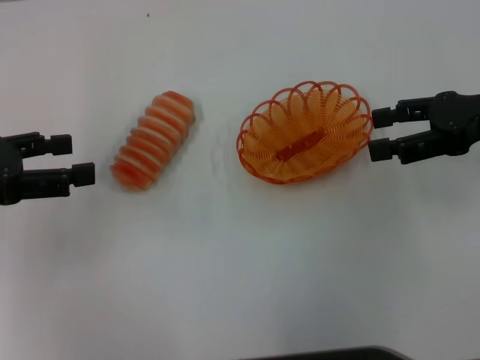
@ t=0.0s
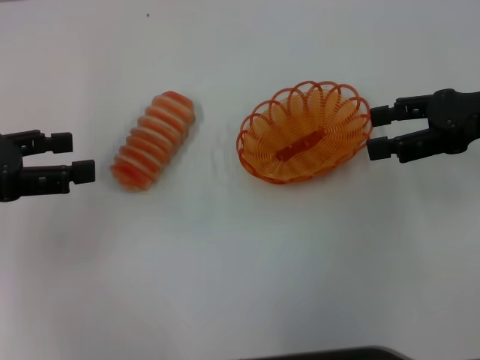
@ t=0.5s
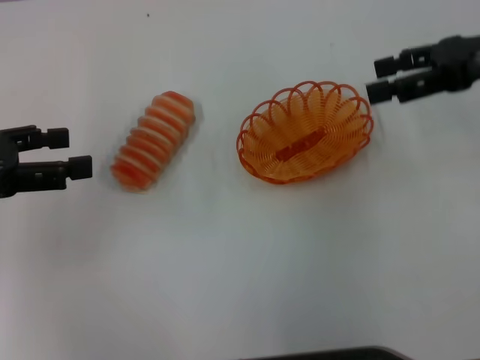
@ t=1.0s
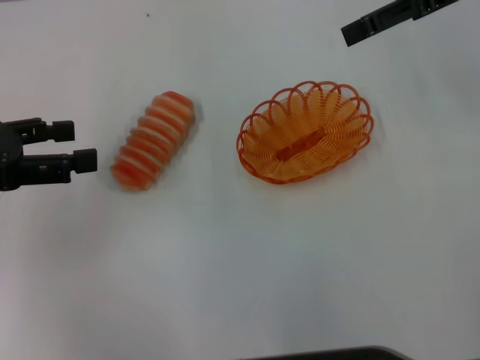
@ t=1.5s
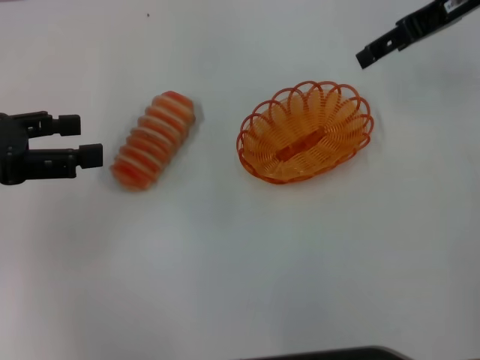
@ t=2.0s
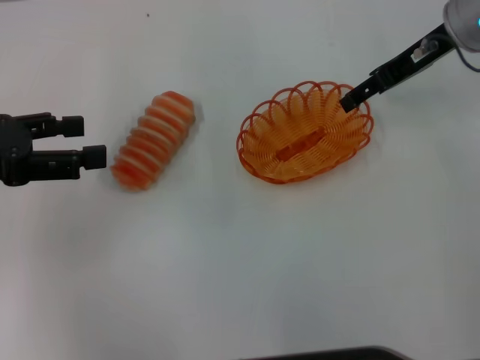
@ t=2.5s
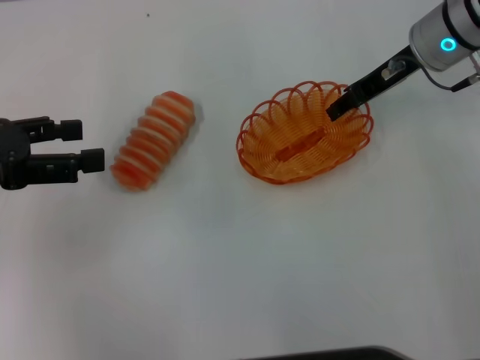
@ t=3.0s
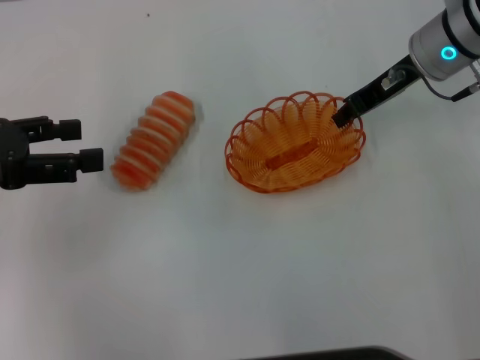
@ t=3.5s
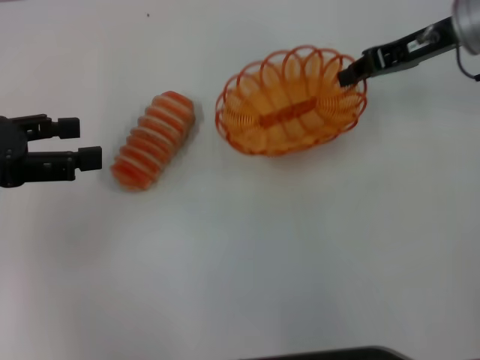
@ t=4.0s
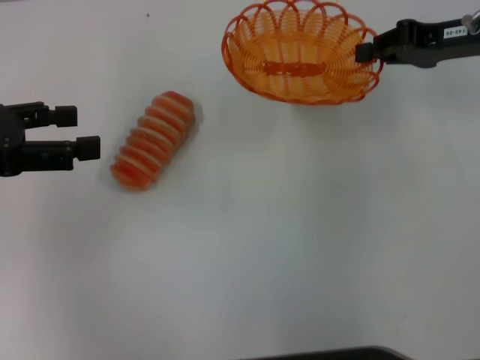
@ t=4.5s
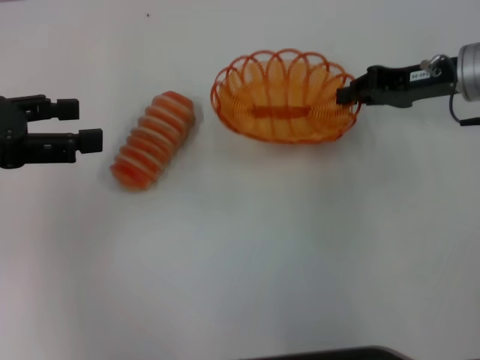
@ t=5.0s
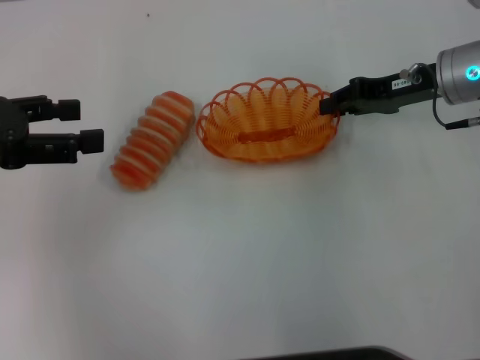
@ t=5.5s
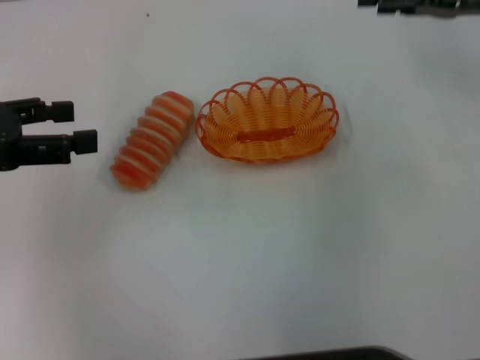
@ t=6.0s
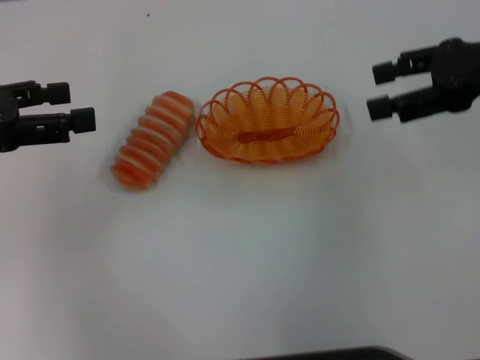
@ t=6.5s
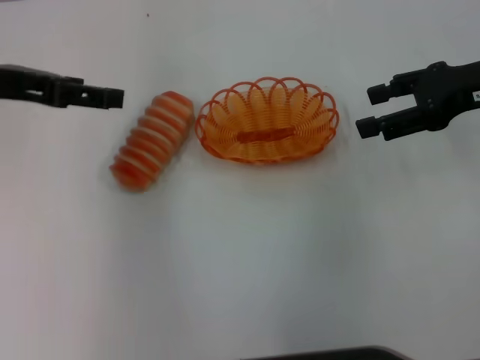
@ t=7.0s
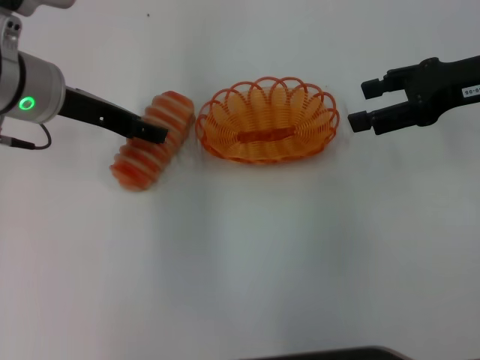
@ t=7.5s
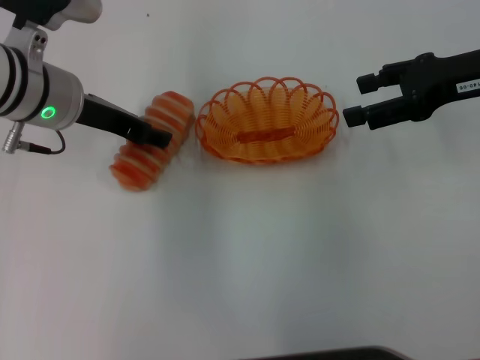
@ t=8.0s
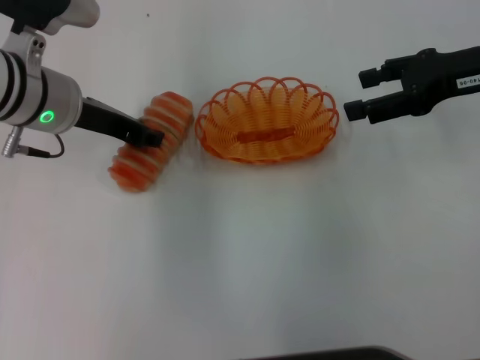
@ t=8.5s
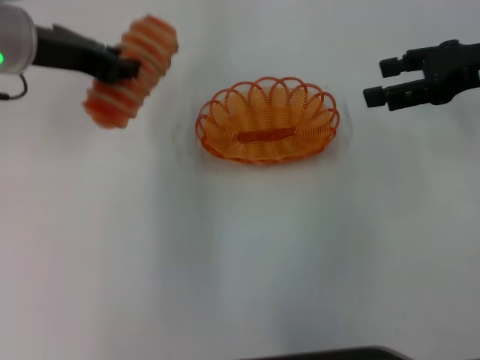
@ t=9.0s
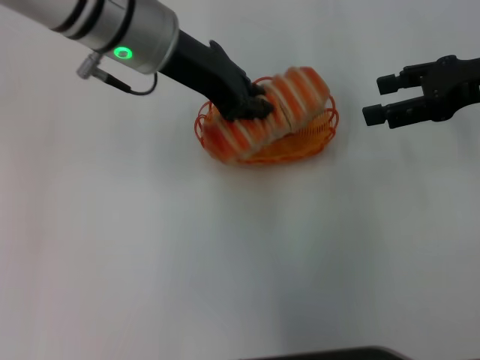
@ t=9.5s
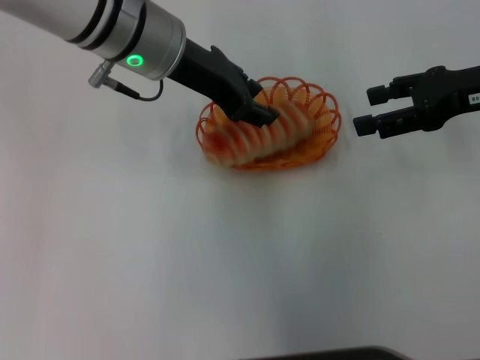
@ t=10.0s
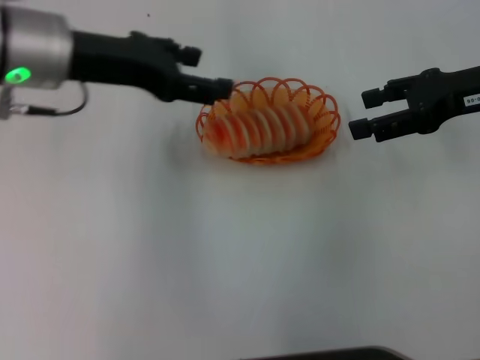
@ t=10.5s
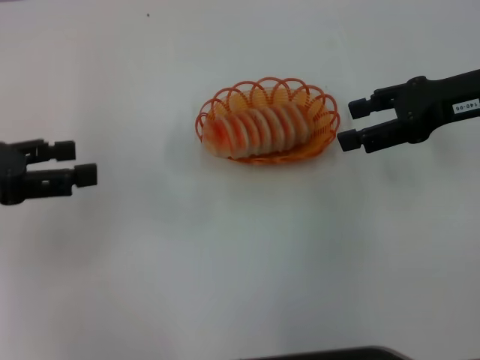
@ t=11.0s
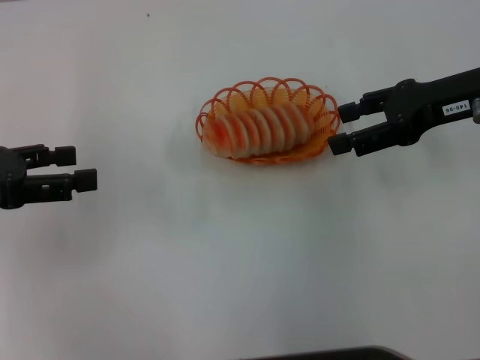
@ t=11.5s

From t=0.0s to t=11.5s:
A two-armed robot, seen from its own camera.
Step, from t=0.0s to t=3.5s: Pick up the basket with the right gripper.
Step, from t=4.5s to t=5.5s: Place the basket in the center of view with the right gripper.
Step, from t=6.0s to t=8.5s: Pick up the long bread with the left gripper.
Step, from t=9.0s to t=10.5s: Place the long bread into the basket with the left gripper.
From t=0.0s to t=2.0s: The right gripper goes approximately 15 cm forward, upward and to the left.
From t=2.0s to t=4.0s: The right gripper heads downward, covering roughly 5 cm, and closes its fingers.
From t=4.0s to t=6.0s: The right gripper moves approximately 5 cm, and opens.
From t=6.0s to t=7.5s: The left gripper shifts about 15 cm to the right and forward.
From t=7.5s to t=9.5s: The left gripper heads to the right, covering some 10 cm, and closes.
From t=9.5s to t=11.5s: The left gripper shifts about 25 cm to the left and backward, and opens its fingers.
